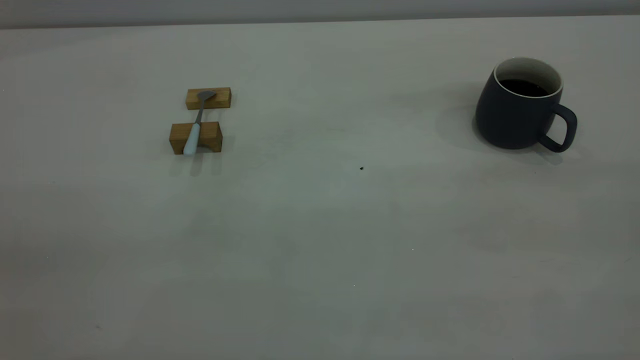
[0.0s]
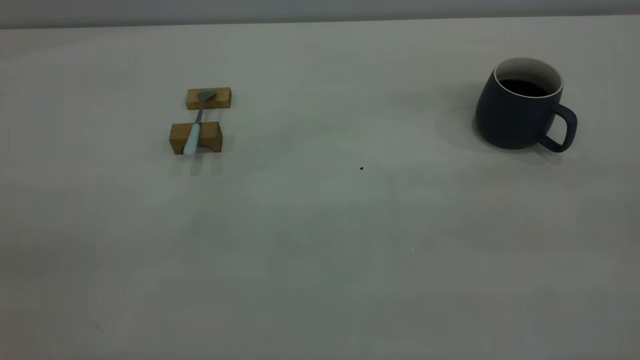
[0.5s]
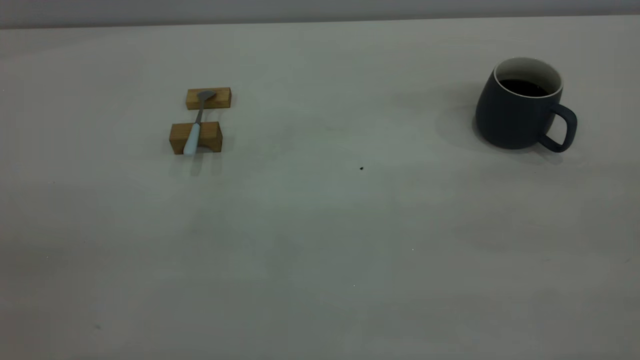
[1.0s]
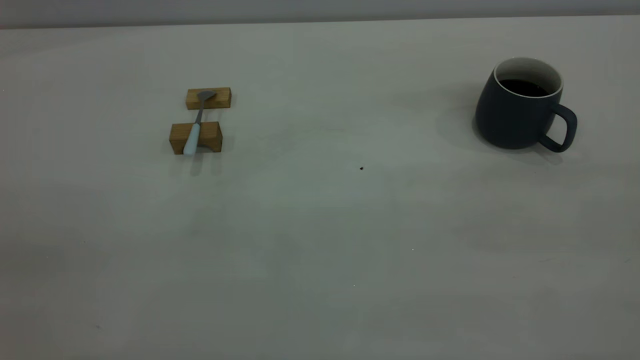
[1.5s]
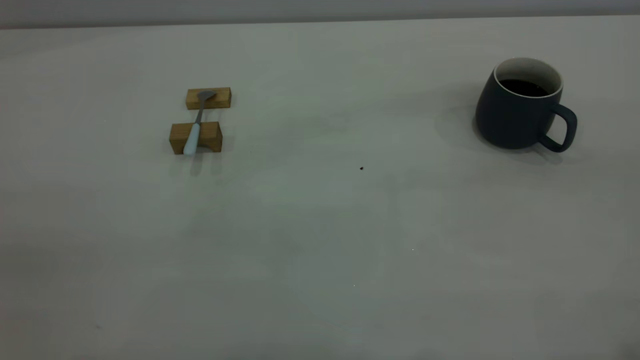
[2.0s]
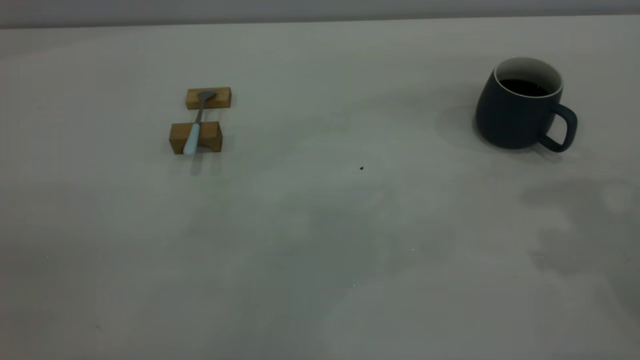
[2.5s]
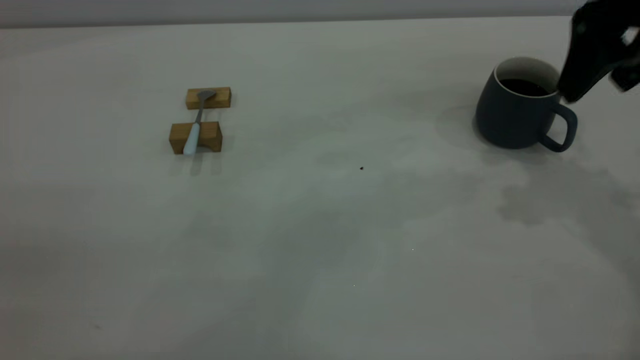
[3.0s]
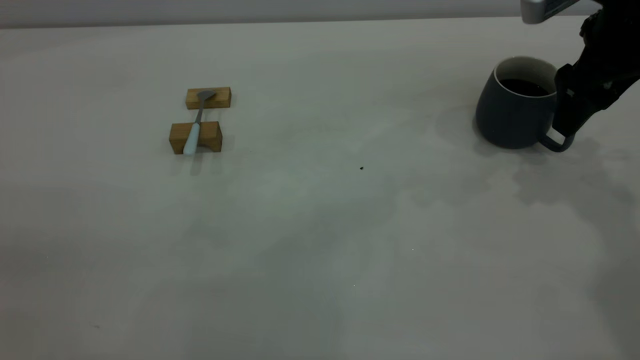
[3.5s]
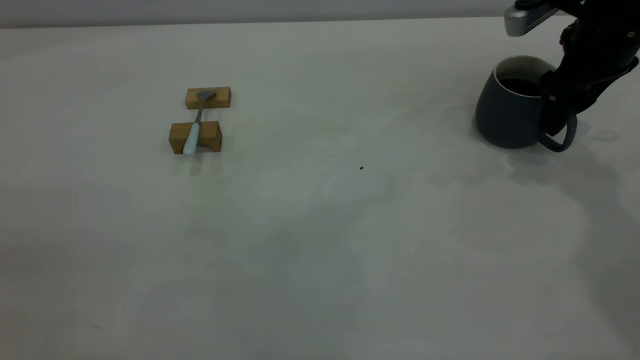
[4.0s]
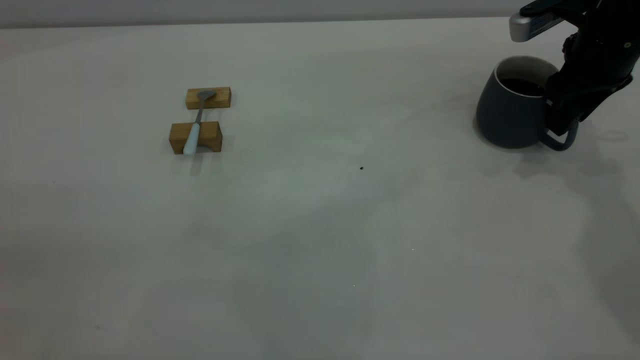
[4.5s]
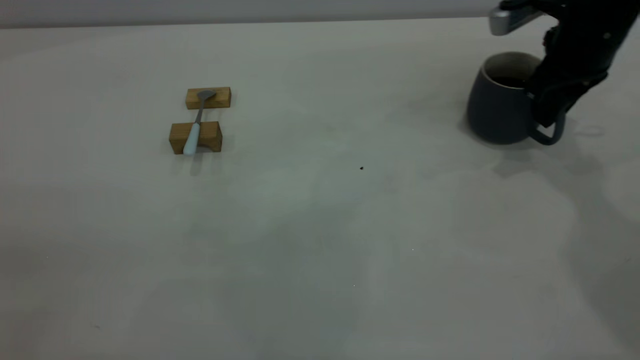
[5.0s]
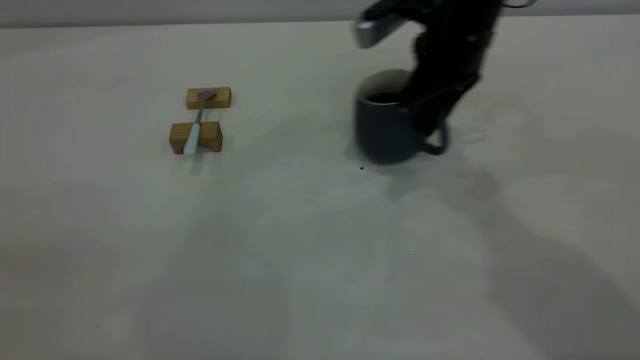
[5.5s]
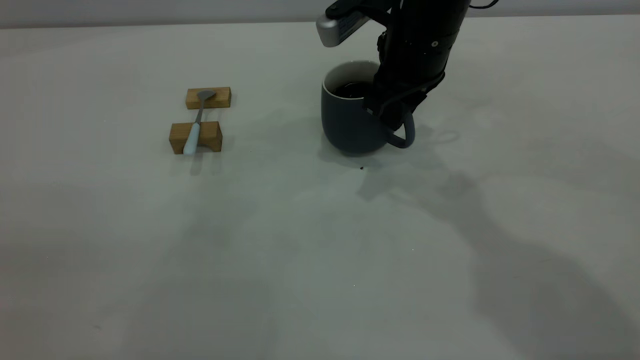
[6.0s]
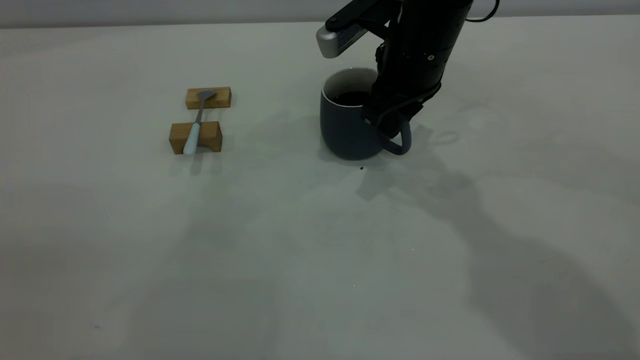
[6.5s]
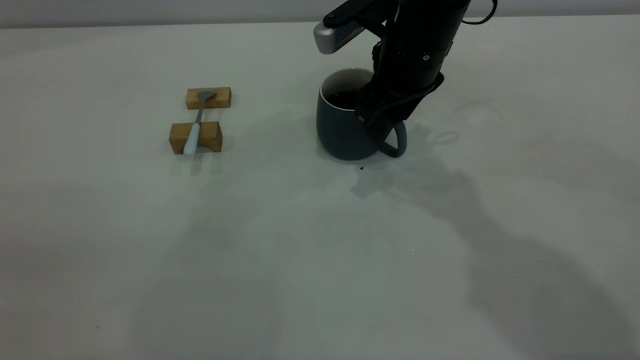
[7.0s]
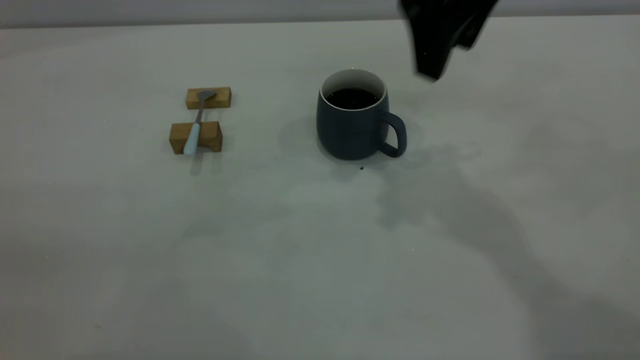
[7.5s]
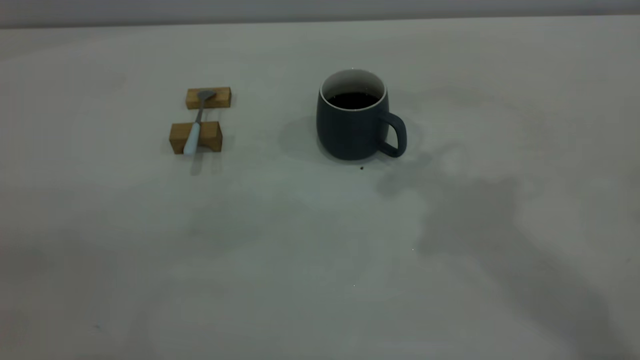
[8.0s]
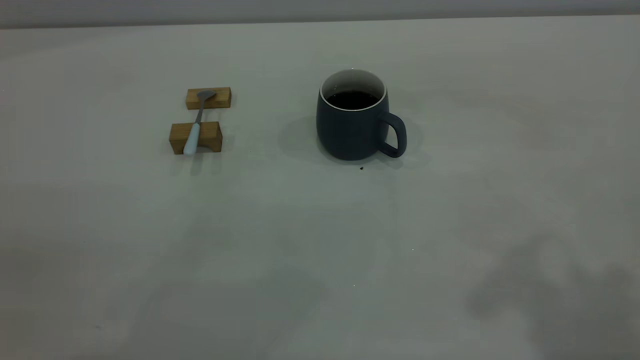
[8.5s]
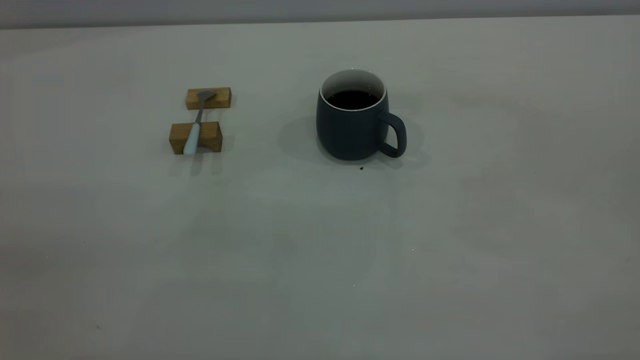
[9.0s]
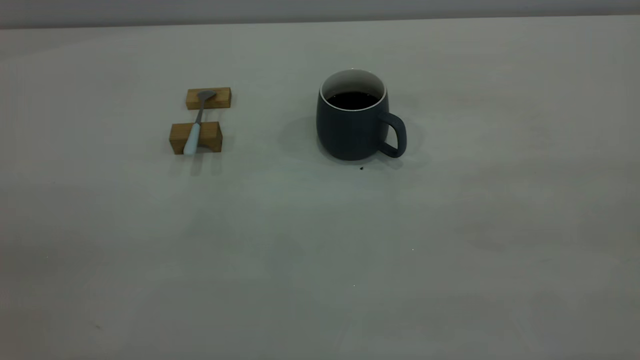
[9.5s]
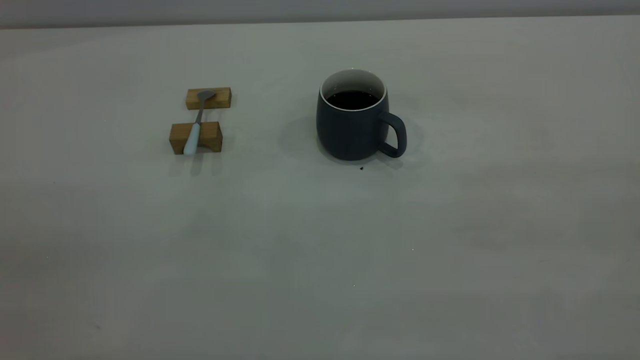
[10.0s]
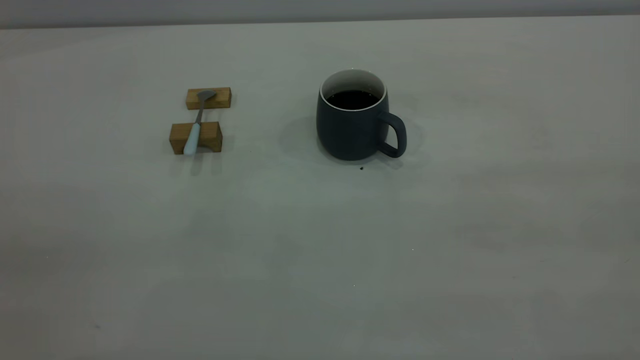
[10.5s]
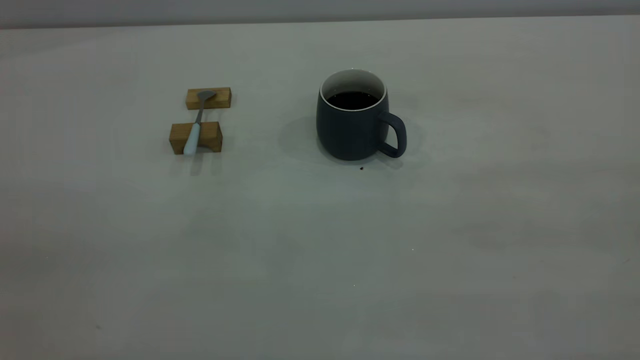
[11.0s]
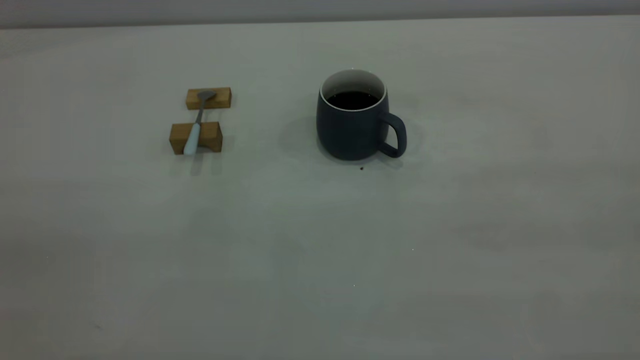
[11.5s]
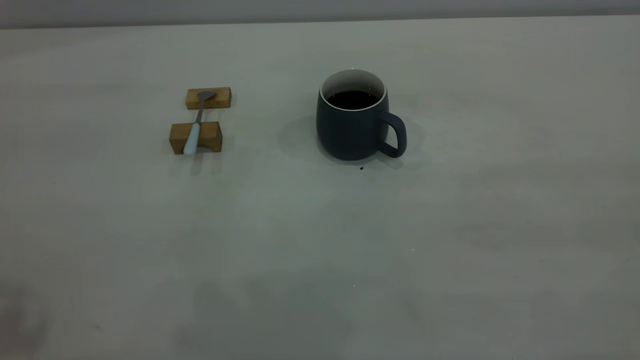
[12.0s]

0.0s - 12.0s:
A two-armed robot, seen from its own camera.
Step, 0.0s - 7.0s: Move the cup with coffee to the center of view.
2.0s - 4.0s: The right gripper is displaced forward and downward by approximately 40 cm.
4.0s - 6.0s: The right gripper is displaced to the left by approximately 20 cm, and closes.
6.0s - 8.0s: The right gripper shifts some 25 cm upward and backward, and opens up.

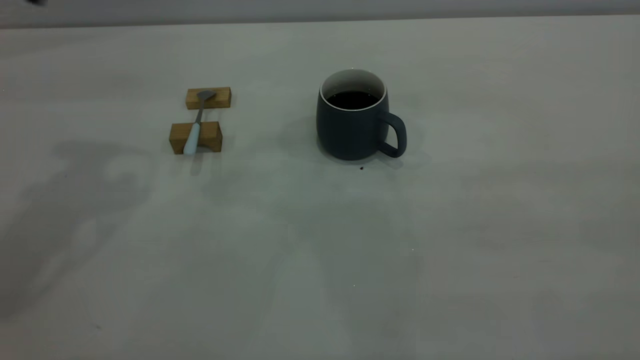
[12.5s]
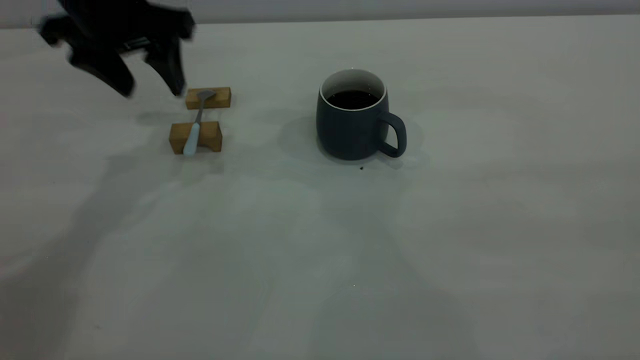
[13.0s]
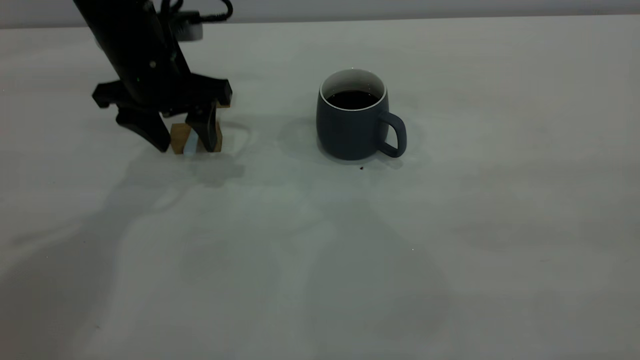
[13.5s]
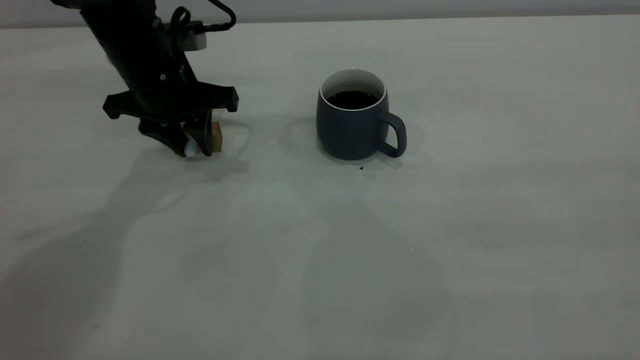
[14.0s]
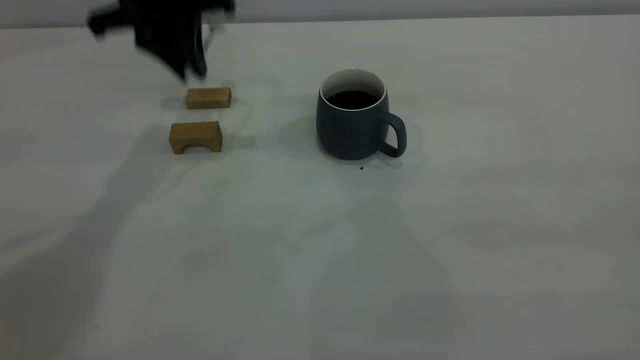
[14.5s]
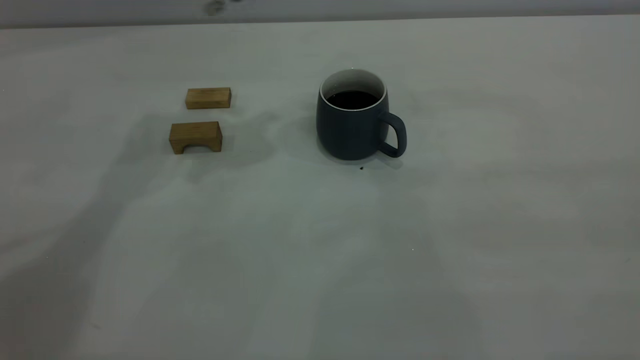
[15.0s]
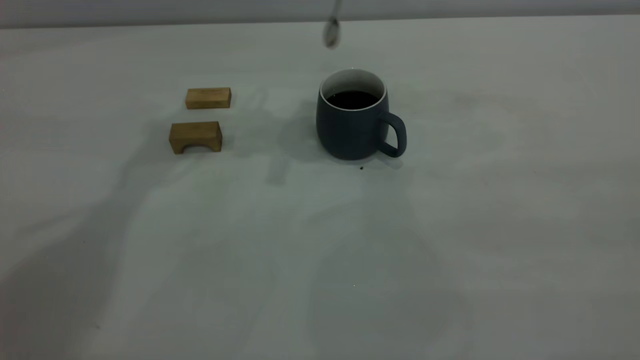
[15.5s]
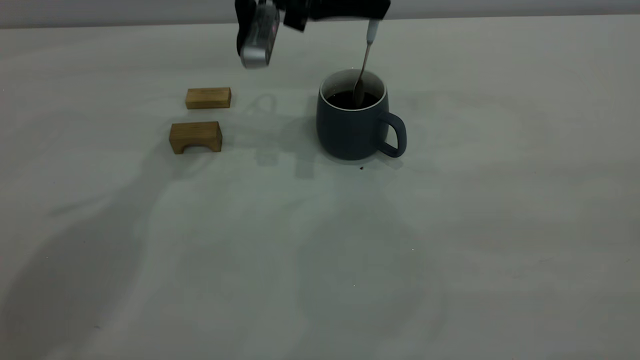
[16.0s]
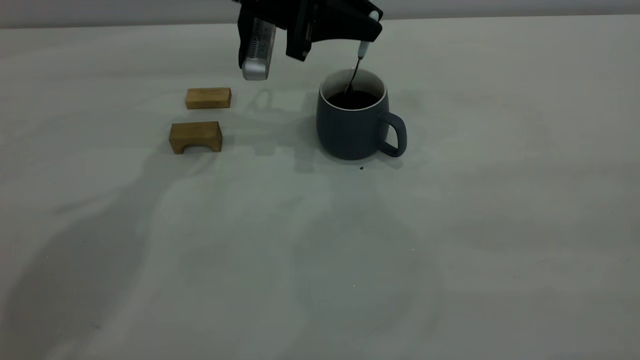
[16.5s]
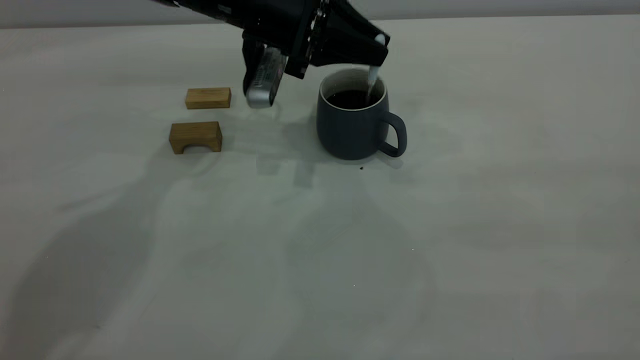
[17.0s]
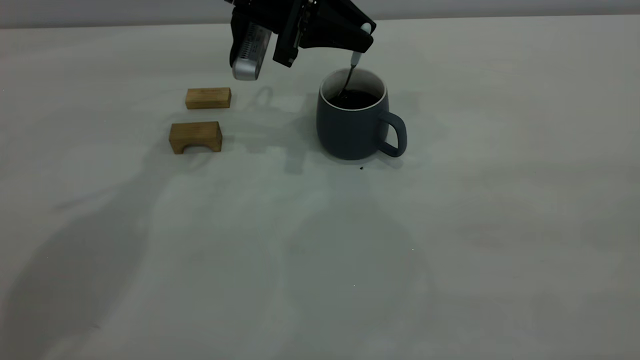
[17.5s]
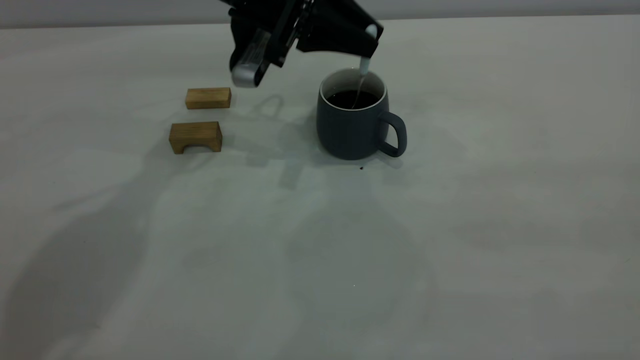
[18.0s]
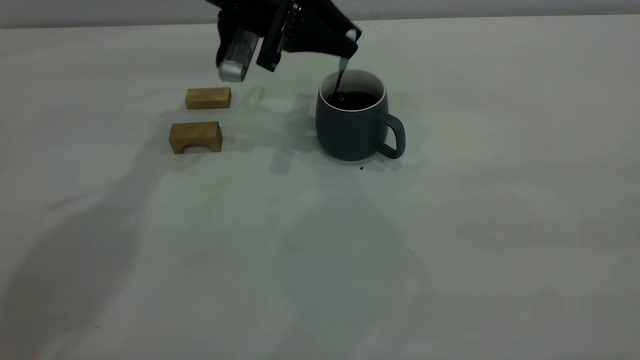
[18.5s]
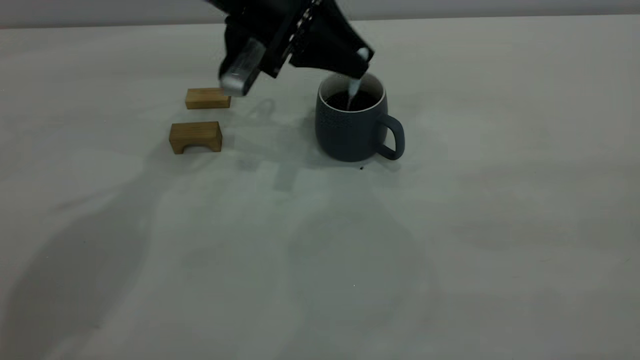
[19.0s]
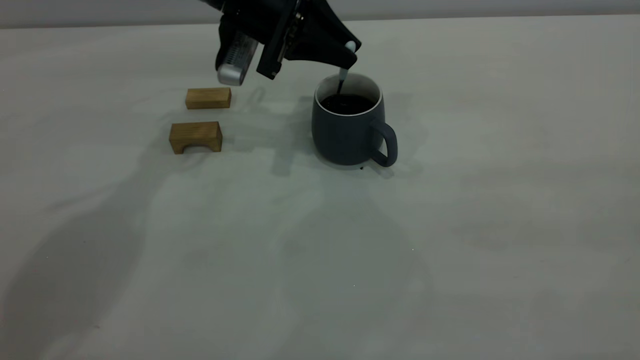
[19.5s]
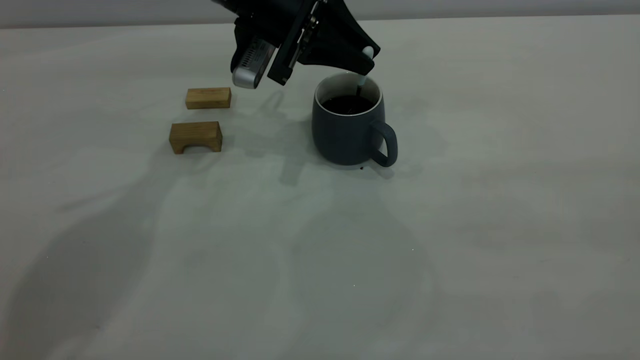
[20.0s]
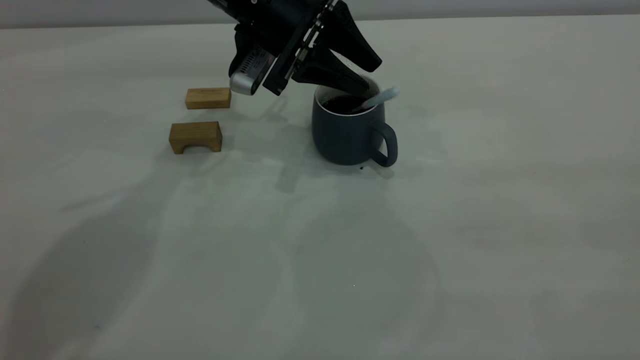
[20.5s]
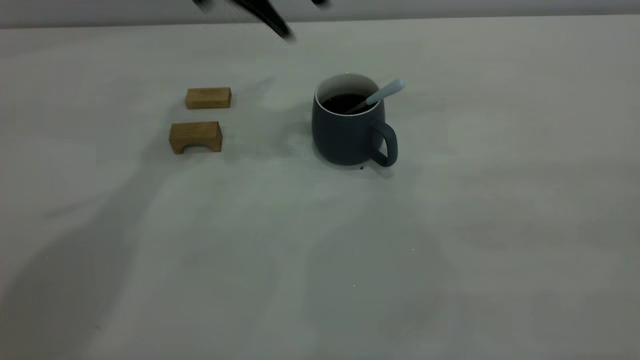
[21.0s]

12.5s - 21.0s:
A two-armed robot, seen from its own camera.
Step, 14.5s - 20.5s: Stir the coffee in the cup.
12.5s - 14.5s: The left gripper moves forward, to the right and downward, about 15 cm, and closes up.
14.5s - 16.5s: The left gripper moves to the right and downward, roughly 10 cm.
16.5s - 19.0s: There are only small adjustments of the grippers.
19.0s - 21.0s: The left gripper is displaced upward by some 10 cm, and opens.
